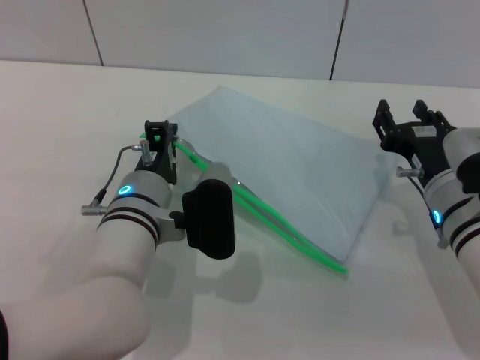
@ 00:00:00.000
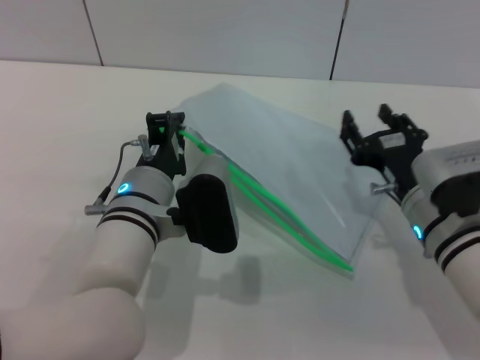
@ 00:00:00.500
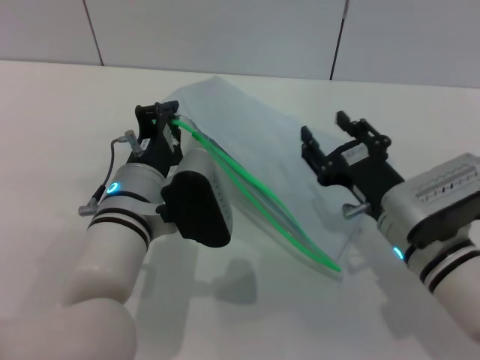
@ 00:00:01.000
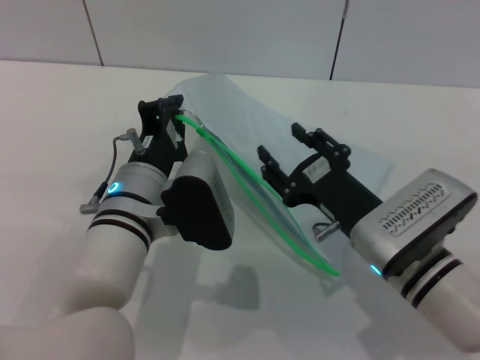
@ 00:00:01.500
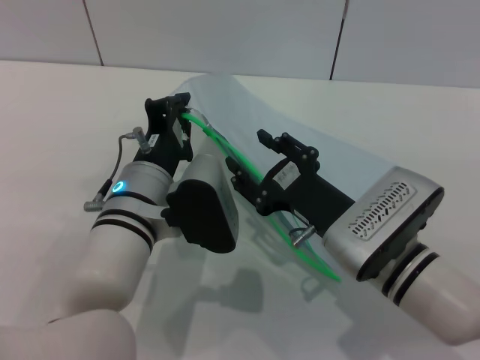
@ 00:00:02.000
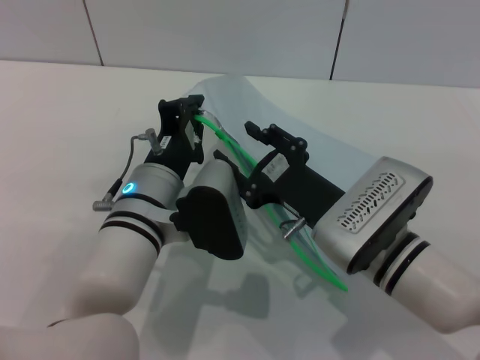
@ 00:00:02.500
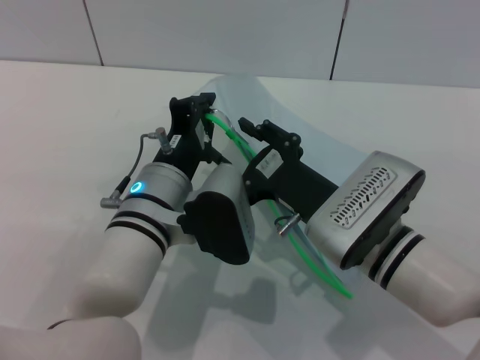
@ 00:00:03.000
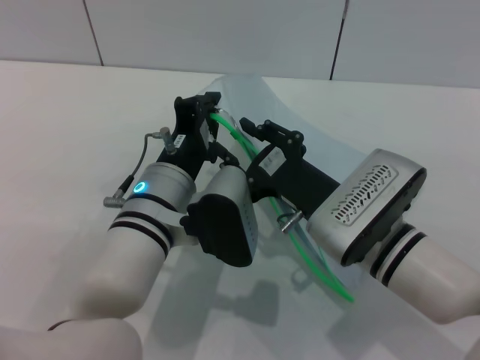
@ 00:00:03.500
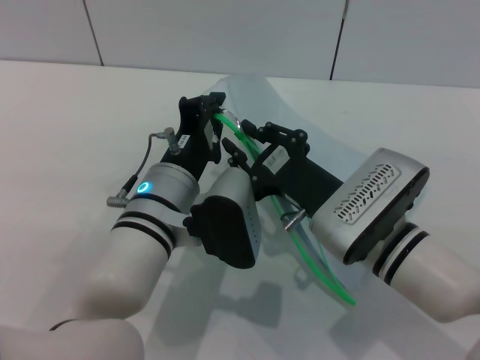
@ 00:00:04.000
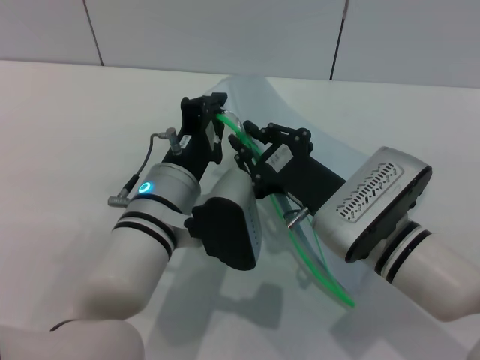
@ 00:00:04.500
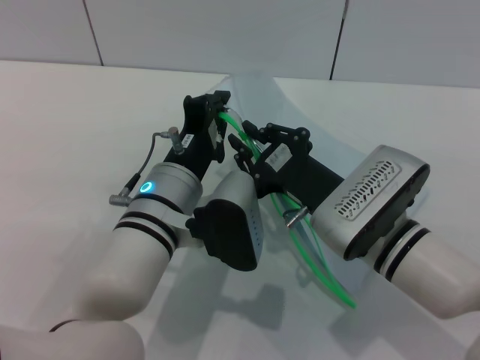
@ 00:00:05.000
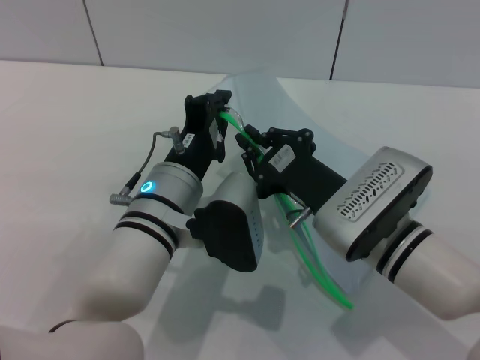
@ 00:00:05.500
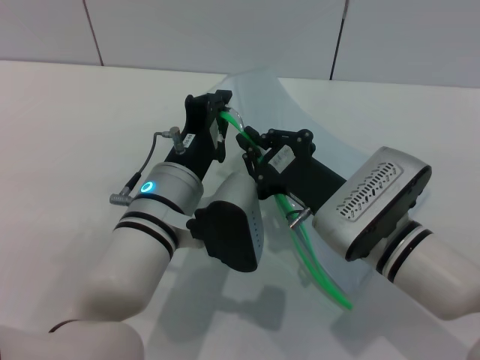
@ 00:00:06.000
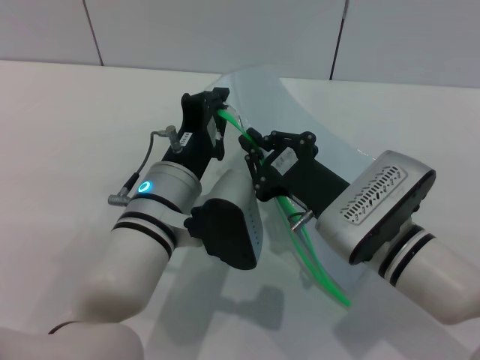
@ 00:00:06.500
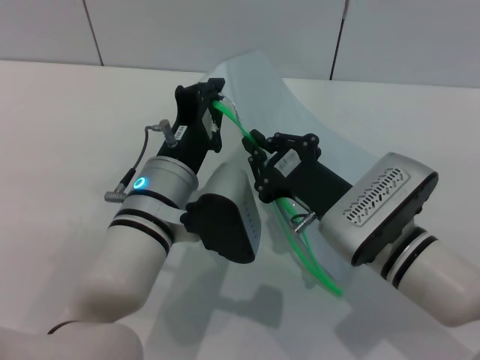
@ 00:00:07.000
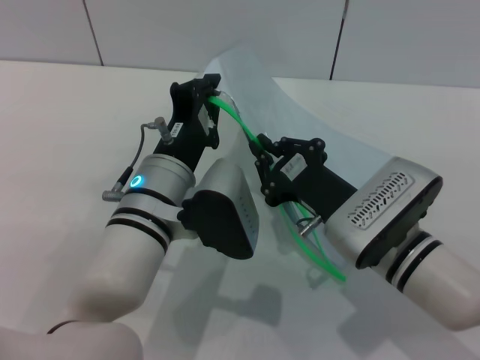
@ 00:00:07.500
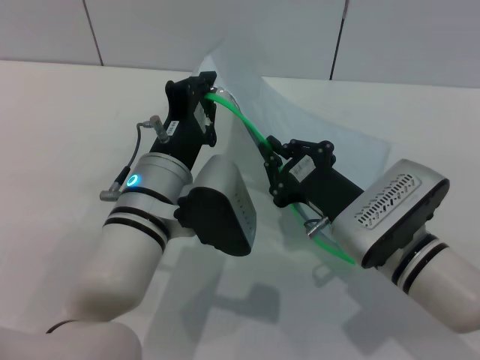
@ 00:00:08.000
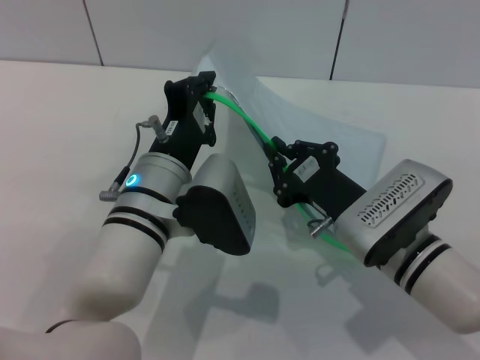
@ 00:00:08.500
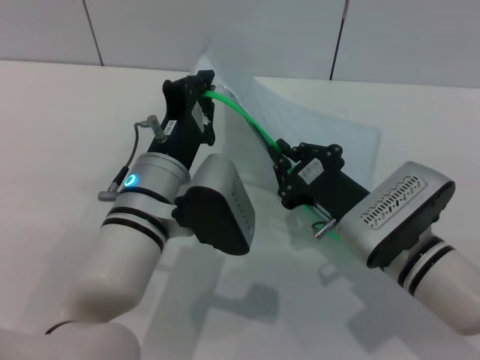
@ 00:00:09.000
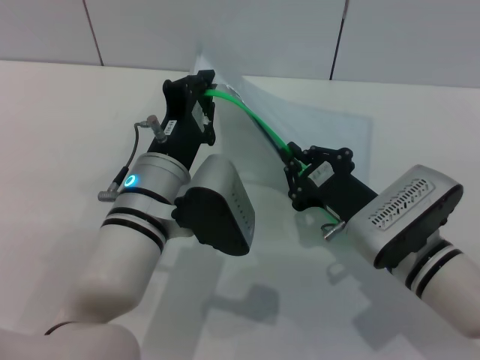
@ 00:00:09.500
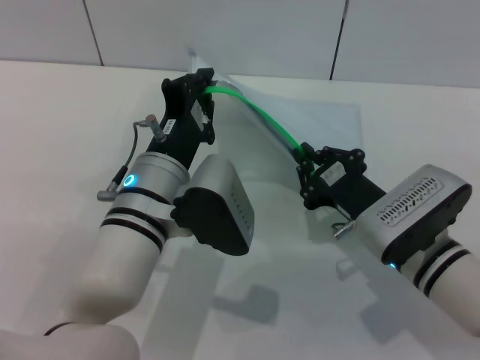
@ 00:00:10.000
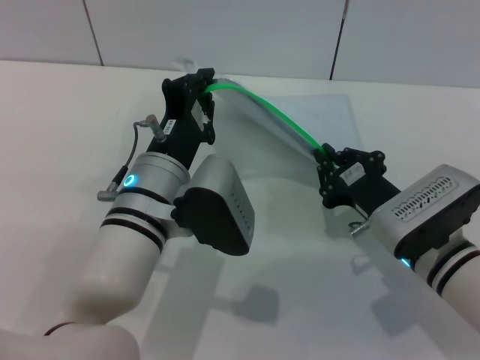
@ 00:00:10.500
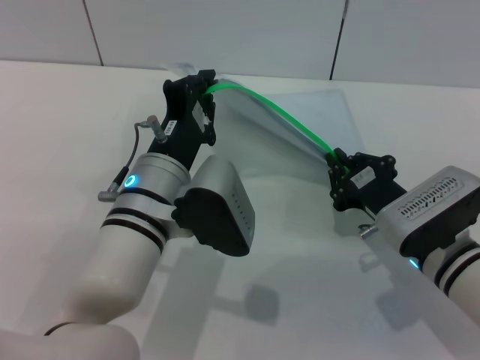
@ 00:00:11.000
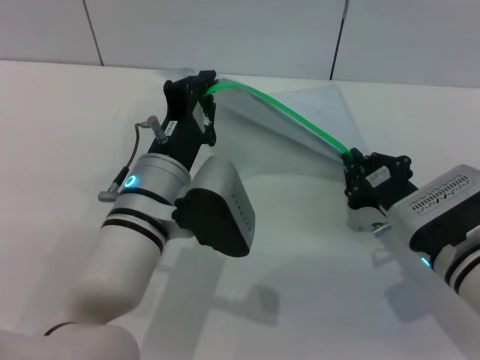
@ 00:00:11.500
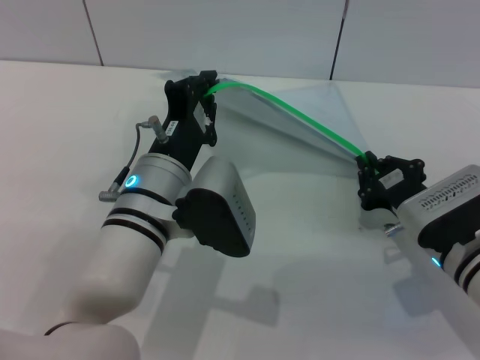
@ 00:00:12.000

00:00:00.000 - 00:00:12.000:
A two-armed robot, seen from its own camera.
00:00:00.000 - 00:00:02.000: The right gripper is displaced to the left by approximately 10 cm.
00:00:04.000 - 00:00:06.000: The right gripper closes up.
00:00:06.000 - 00:00:10.000: The grippers stay close to where they were, moving slightly.
00:00:10.000 - 00:00:12.000: The right gripper heads to the right, covering some 5 cm.

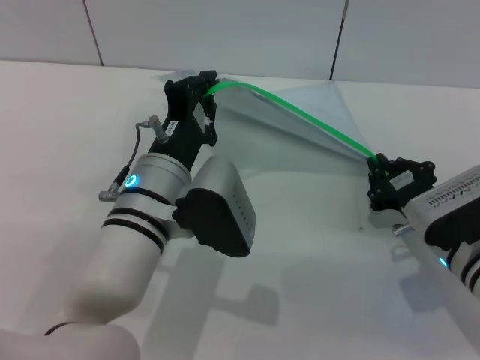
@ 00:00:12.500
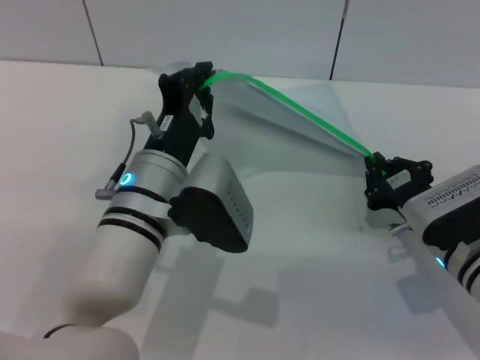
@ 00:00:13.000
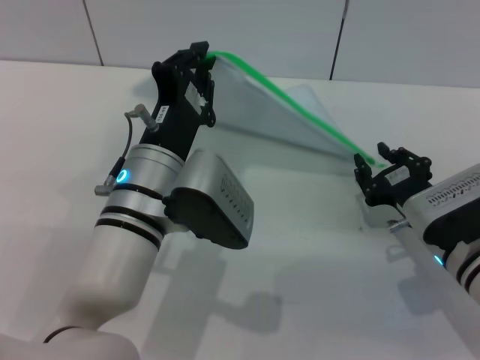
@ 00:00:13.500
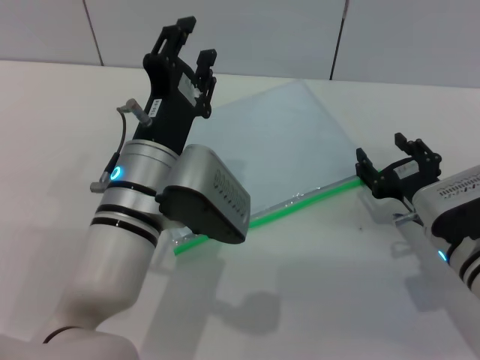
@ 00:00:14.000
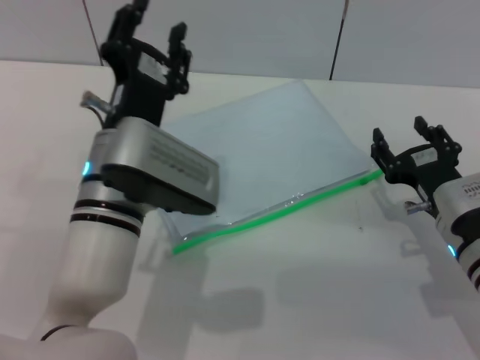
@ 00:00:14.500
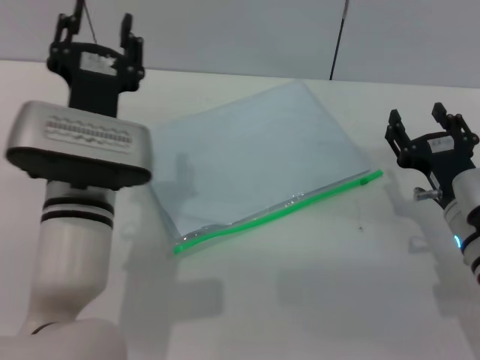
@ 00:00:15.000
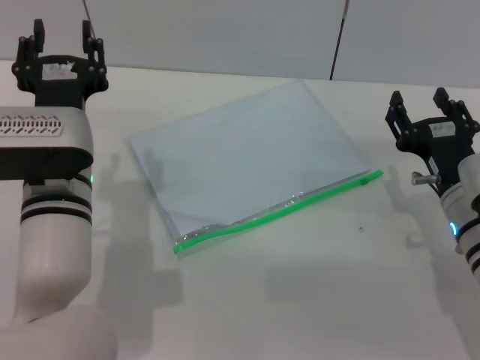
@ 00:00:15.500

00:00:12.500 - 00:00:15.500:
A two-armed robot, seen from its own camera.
00:00:12.500 - 00:00:14.000: The left gripper opens its fingers. Meanwhile the right gripper opens up.
00:00:14.000 - 00:00:15.500: The left gripper goes roughly 5 cm to the left, and opens.
